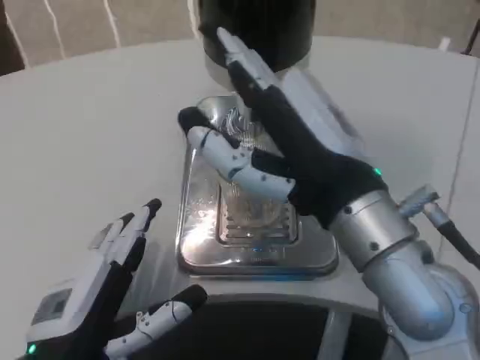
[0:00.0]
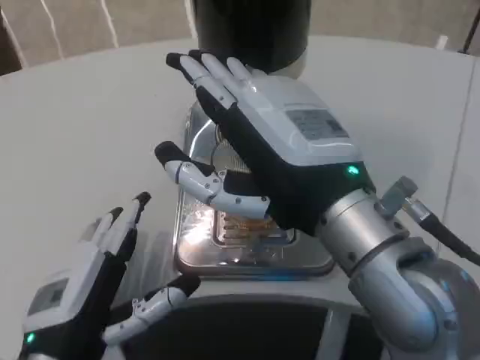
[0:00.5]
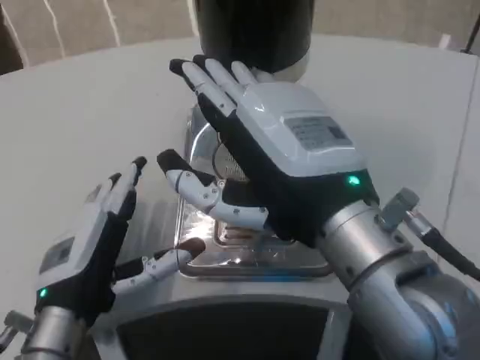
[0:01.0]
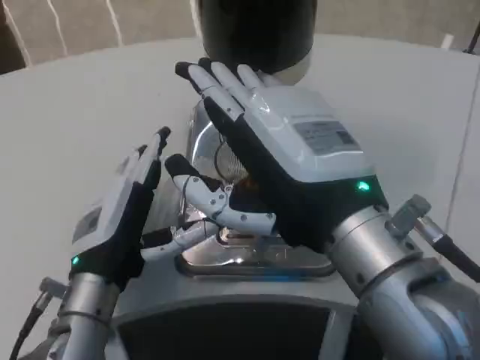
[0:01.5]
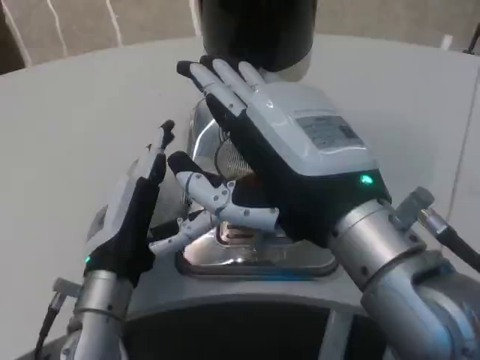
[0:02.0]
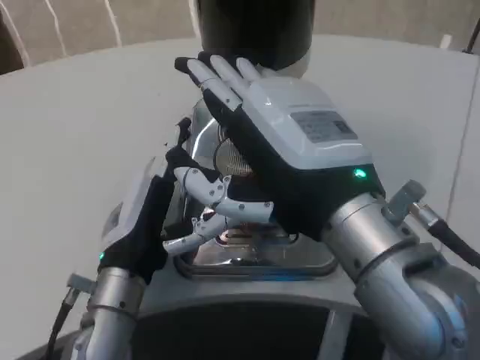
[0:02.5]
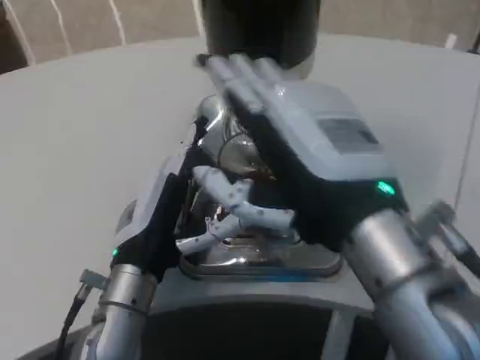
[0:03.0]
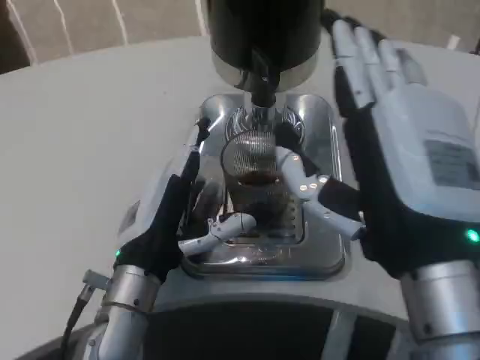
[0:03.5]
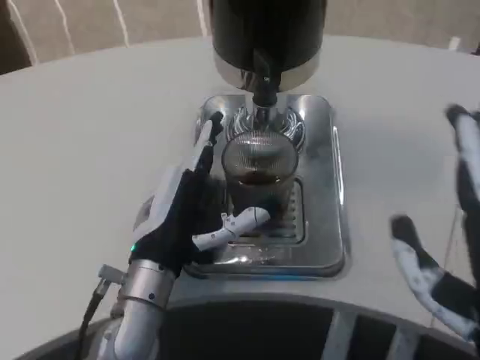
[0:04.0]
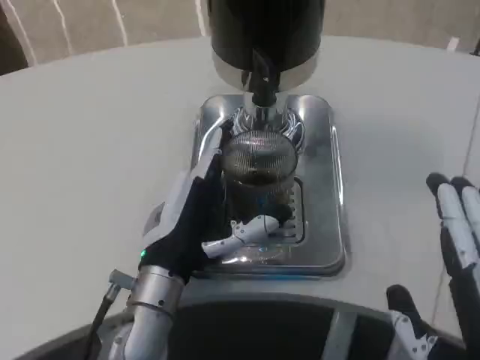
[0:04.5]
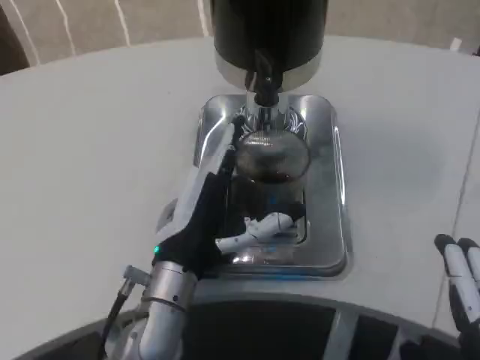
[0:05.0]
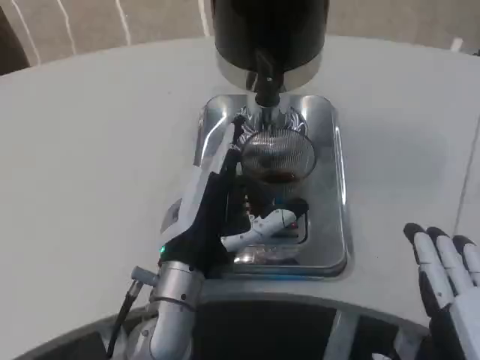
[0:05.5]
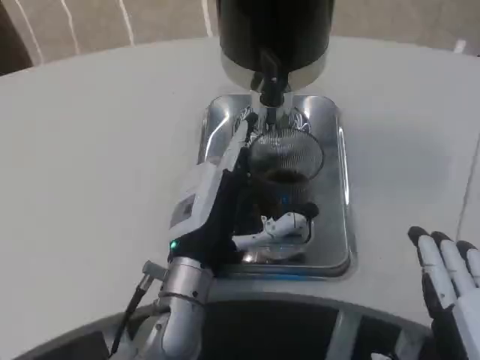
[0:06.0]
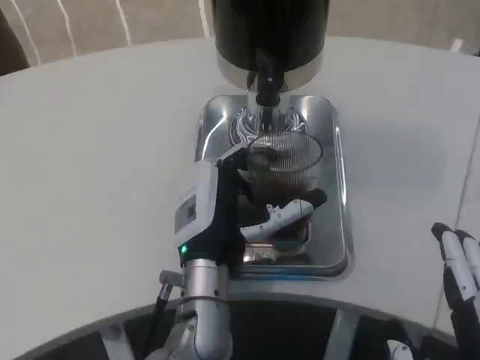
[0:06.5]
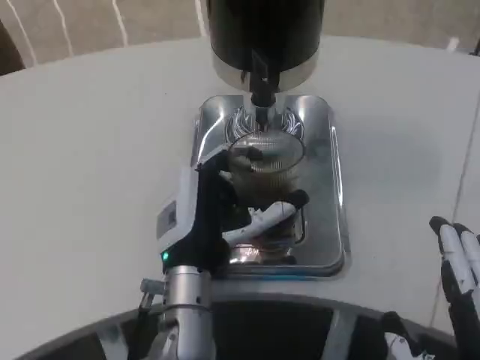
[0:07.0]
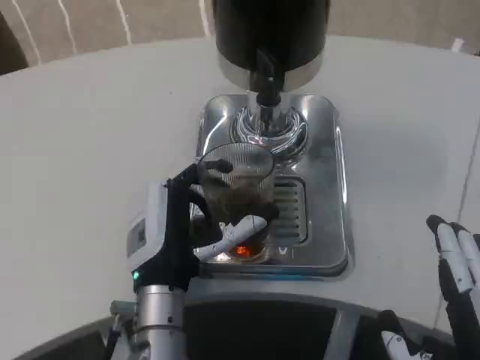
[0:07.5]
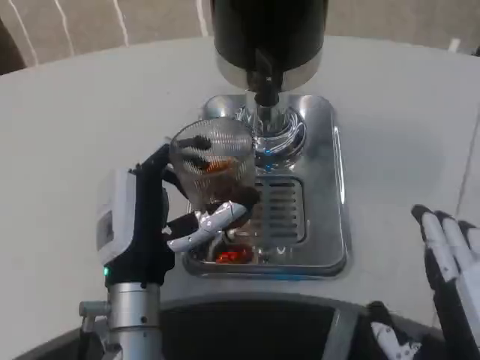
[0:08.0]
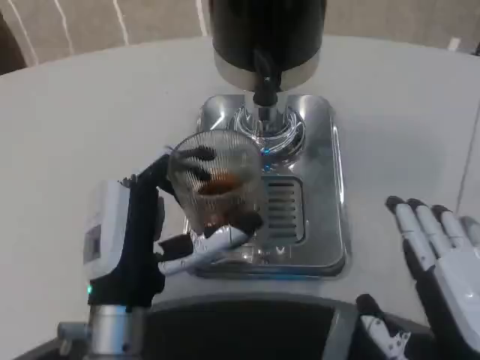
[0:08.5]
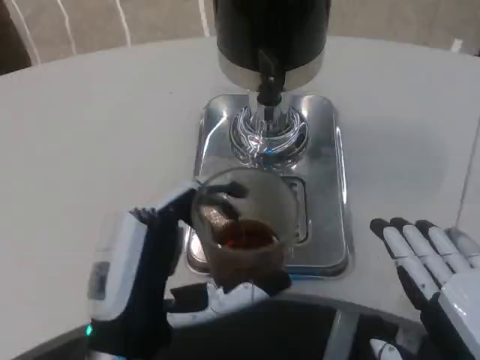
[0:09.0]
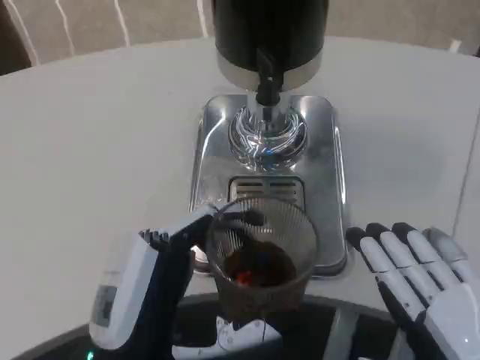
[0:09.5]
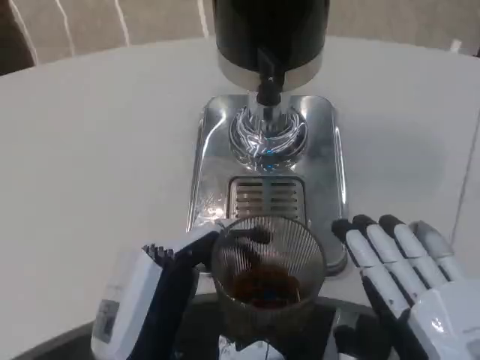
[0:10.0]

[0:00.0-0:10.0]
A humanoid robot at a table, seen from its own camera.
Task of the whole recording: Grasp the cup under the faucet to collect the drink, then remove the cup.
0:00.0 to 0:02.0: The left hand is displaced forward by about 10 cm.
0:02.0 to 0:04.0: The right hand travels backward, to the right and downward by approximately 10 cm.
0:08.0 to 0:10.0: The left hand travels backward by roughly 10 cm.

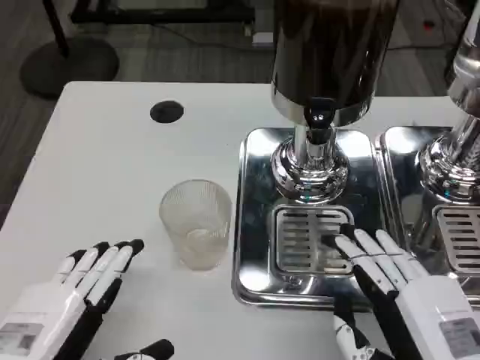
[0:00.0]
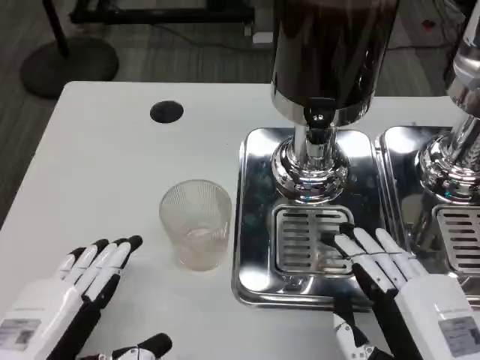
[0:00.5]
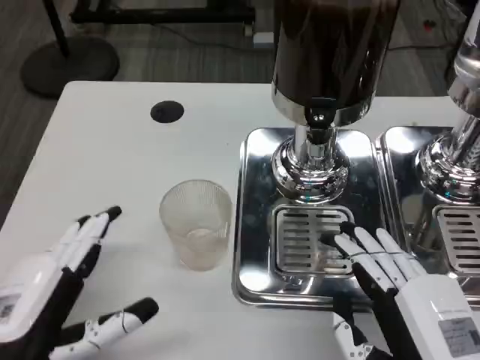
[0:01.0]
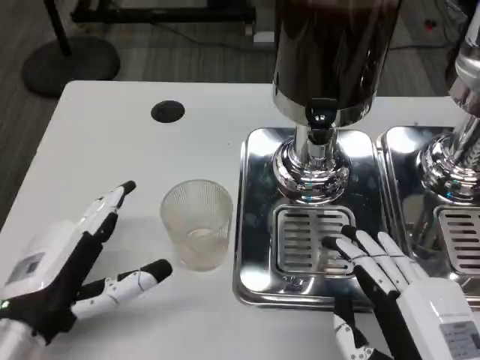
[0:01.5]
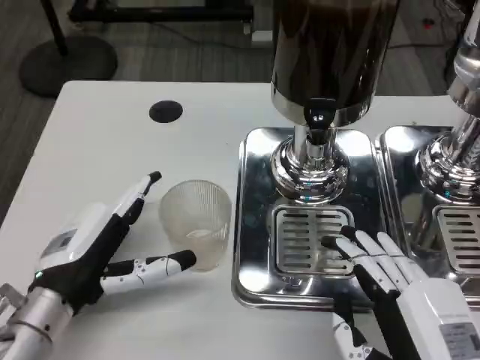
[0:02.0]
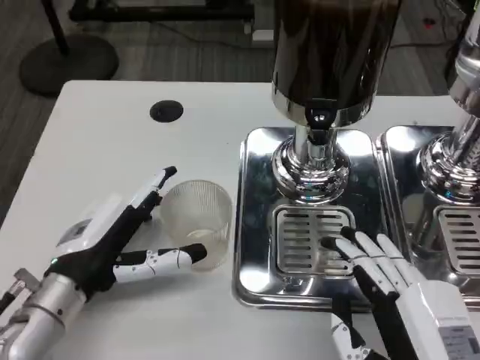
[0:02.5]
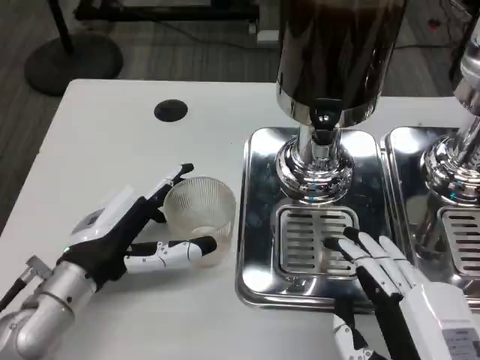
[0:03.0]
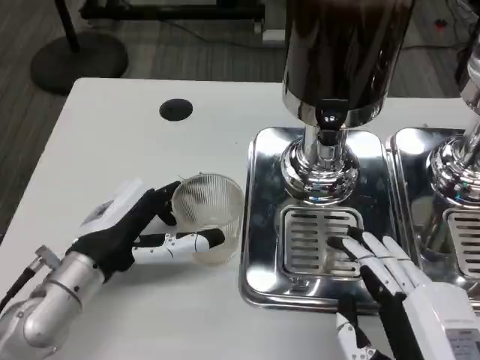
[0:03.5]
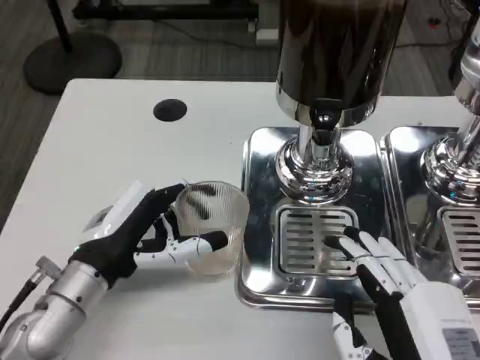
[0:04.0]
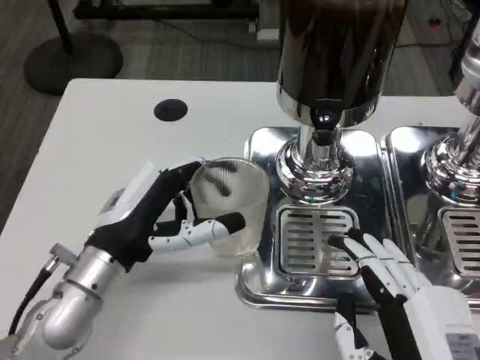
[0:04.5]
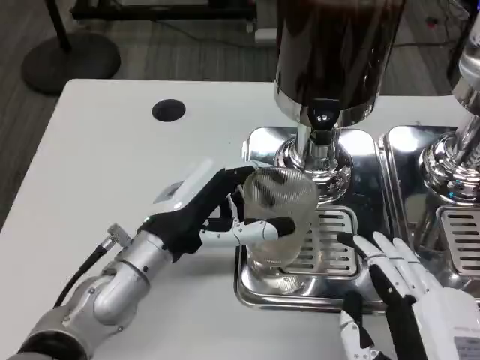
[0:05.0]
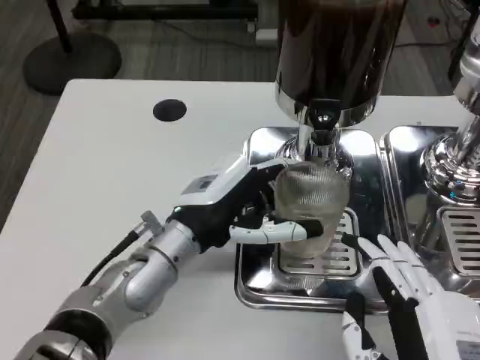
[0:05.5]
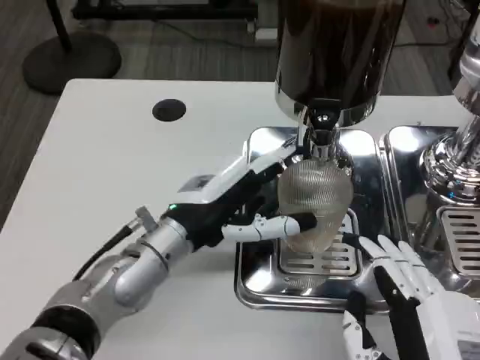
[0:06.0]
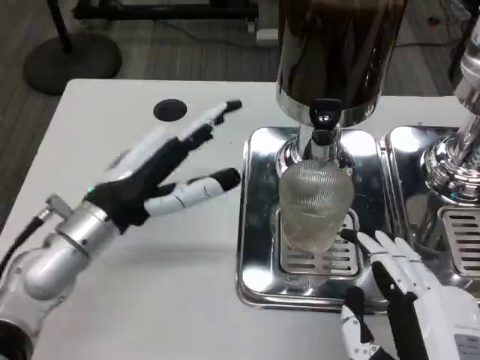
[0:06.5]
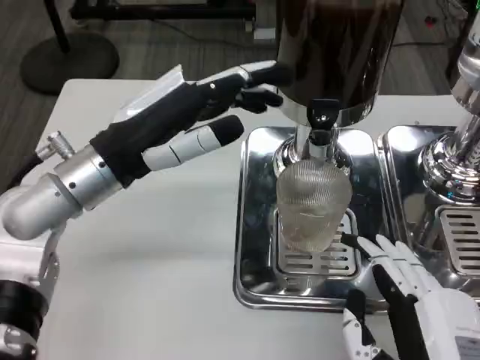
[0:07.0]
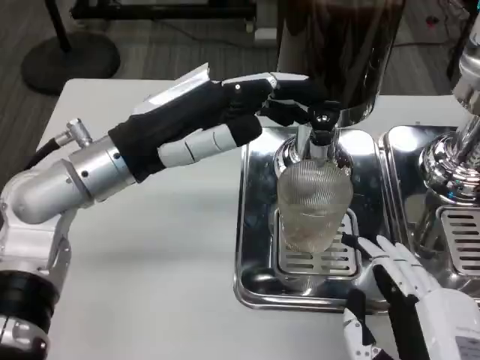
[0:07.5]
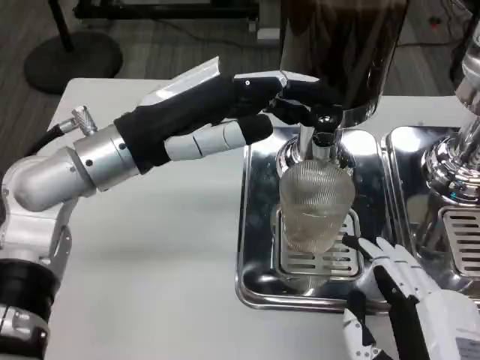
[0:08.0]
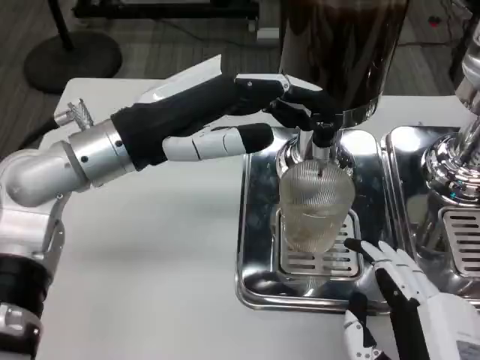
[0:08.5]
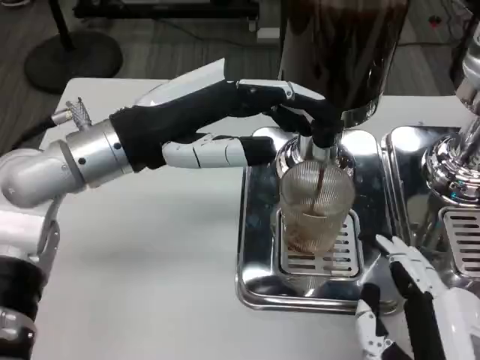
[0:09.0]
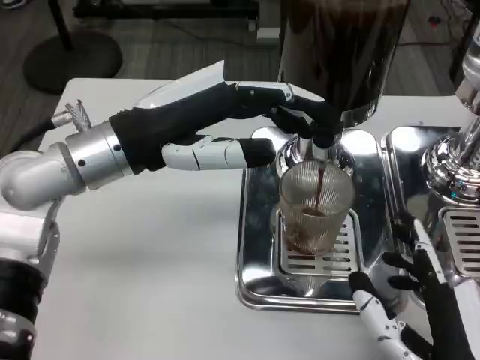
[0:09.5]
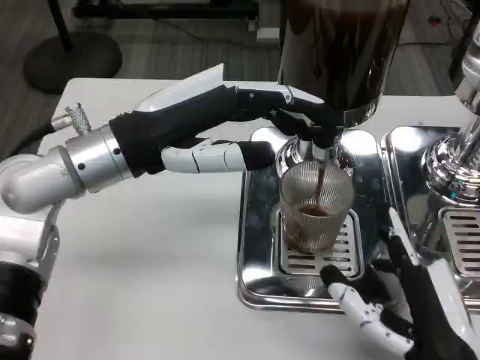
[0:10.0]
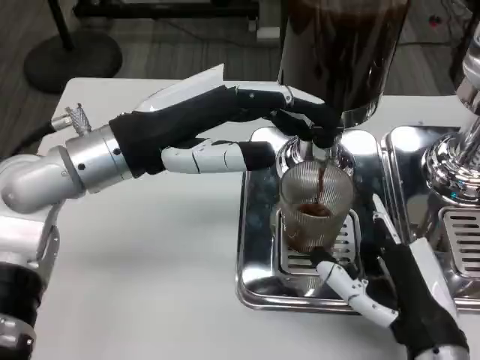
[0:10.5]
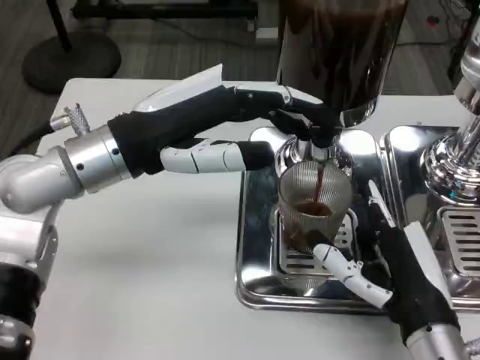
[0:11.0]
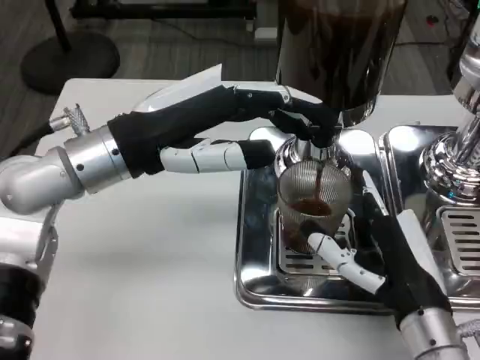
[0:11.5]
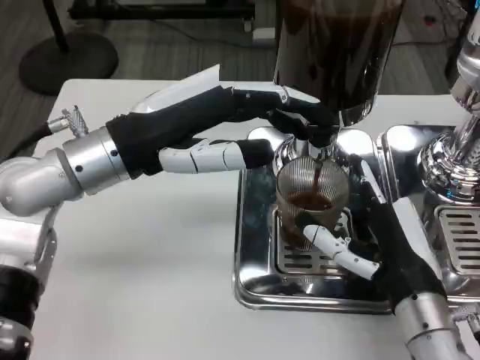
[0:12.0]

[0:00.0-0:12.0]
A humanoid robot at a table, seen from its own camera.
Task of the whole recording: Grasp the cup under the faucet to collect the drink, then remove the cup.
0:00.0 to 0:02.0: The left hand goes approximately 10 cm forward.
0:04.0 to 0:06.0: The left hand shifts some 5 cm to the right.
0:06.0 to 0:08.0: The left hand travels upward by about 10 cm.
0:10.0 to 0:12.0: The right hand goes roughly 10 cm forward.

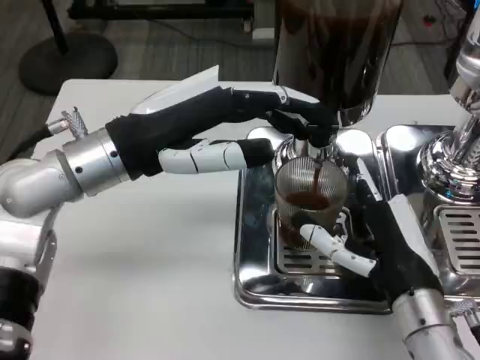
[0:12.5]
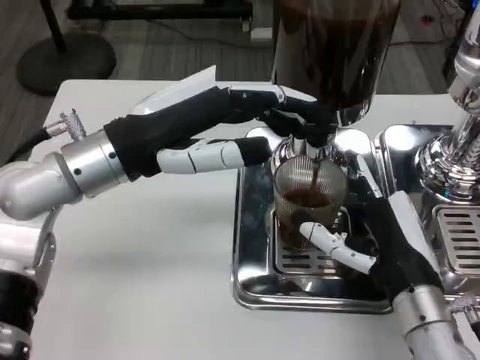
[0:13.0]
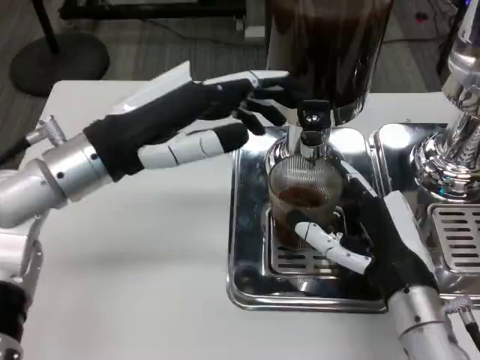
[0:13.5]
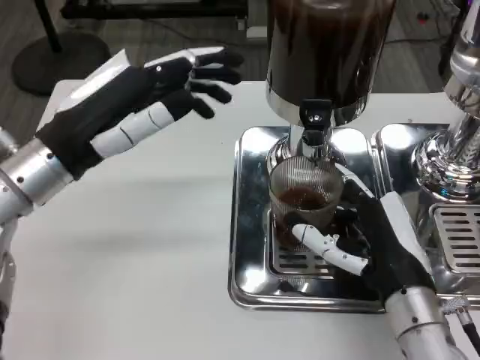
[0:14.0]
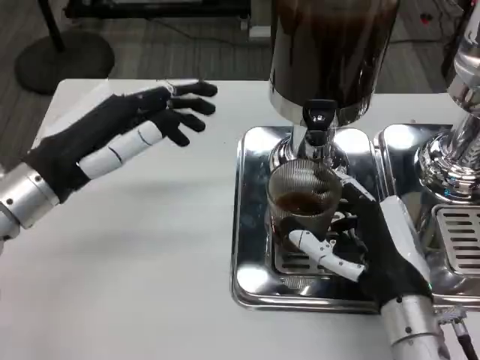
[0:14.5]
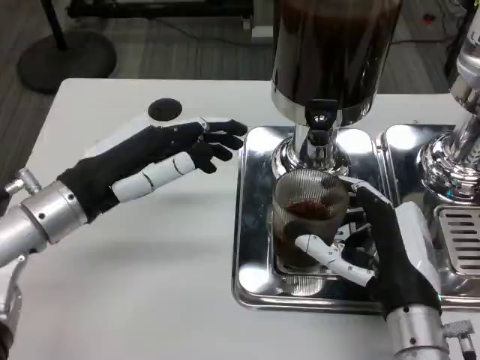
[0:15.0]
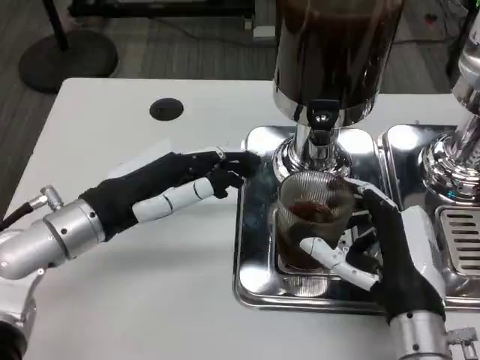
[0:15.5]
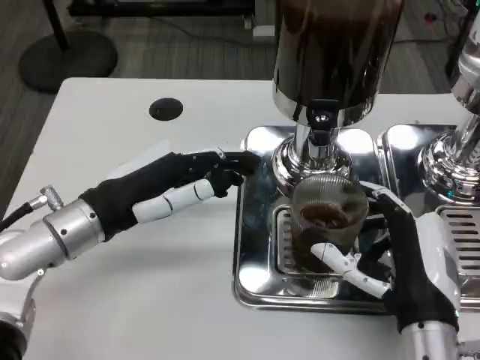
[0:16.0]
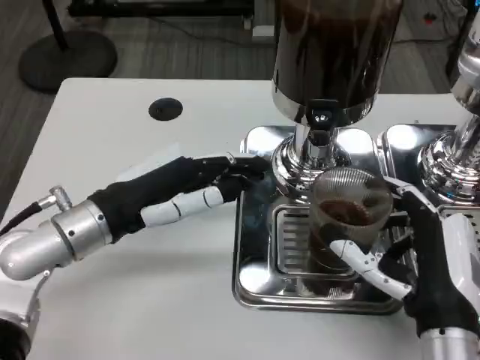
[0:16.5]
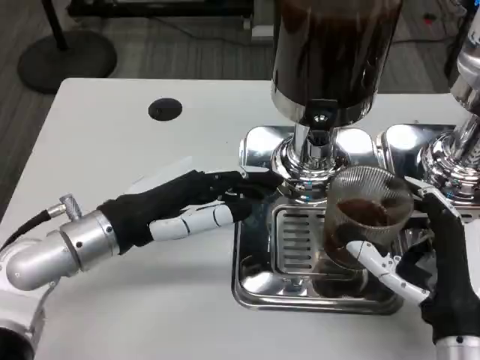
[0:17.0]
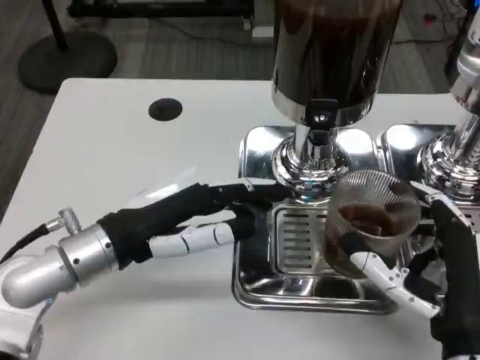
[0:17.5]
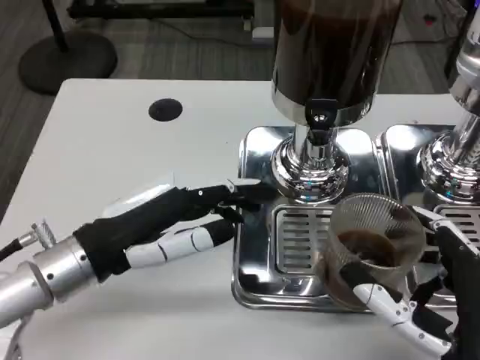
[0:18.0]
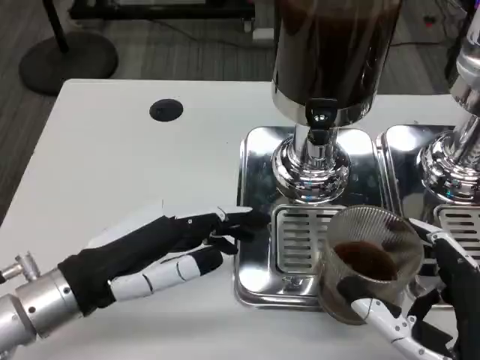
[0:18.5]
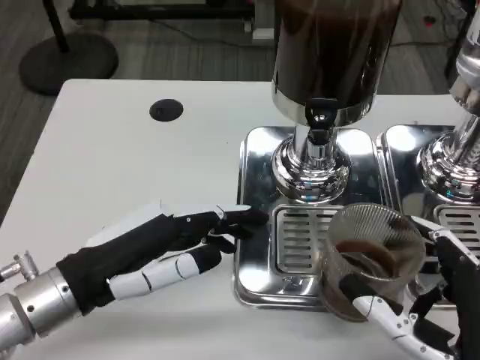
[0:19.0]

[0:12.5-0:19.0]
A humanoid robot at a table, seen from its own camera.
Task of the whole recording: Grasp the cup under the faucet to collect the drink, then remove the cup.
0:12.5 to 0:14.5: The left hand moves to the left, about 5 cm.
0:14.5 to 0:17.0: The left hand shifts by some 5 cm.
0:17.0 to 0:19.0: The hands both shift backward by roughly 5 cm.
